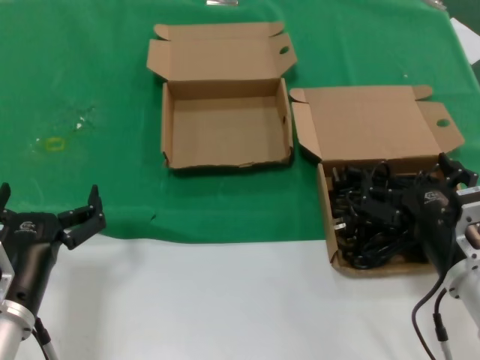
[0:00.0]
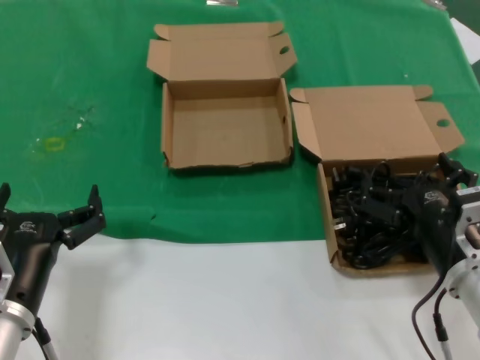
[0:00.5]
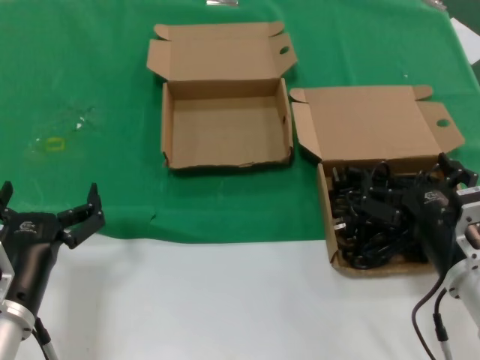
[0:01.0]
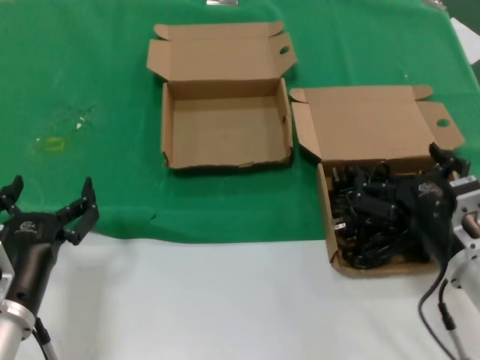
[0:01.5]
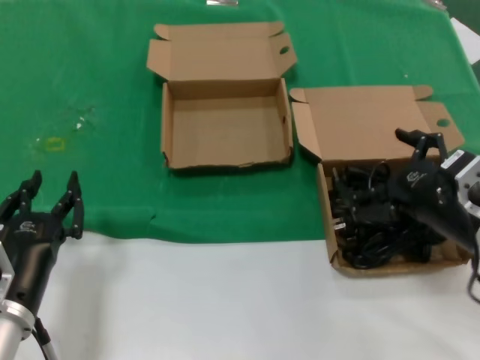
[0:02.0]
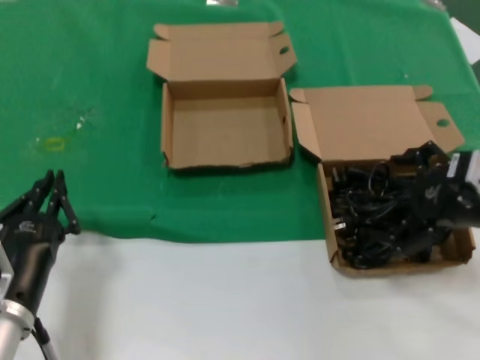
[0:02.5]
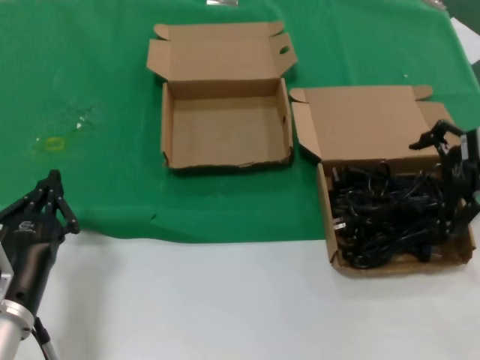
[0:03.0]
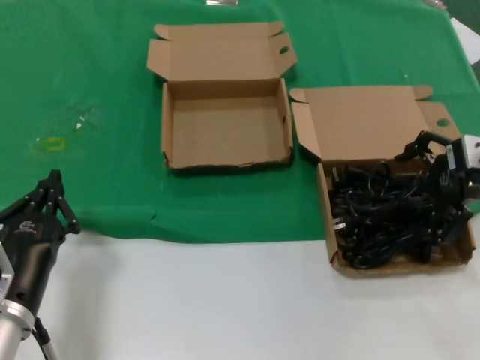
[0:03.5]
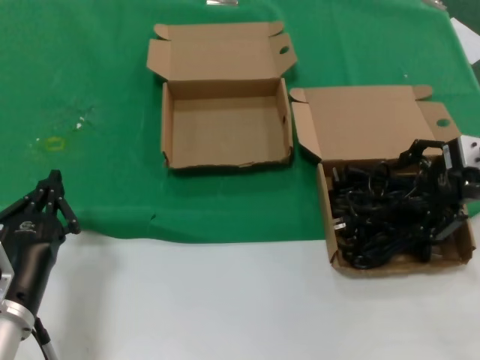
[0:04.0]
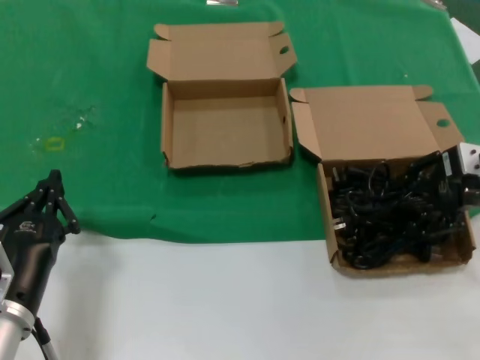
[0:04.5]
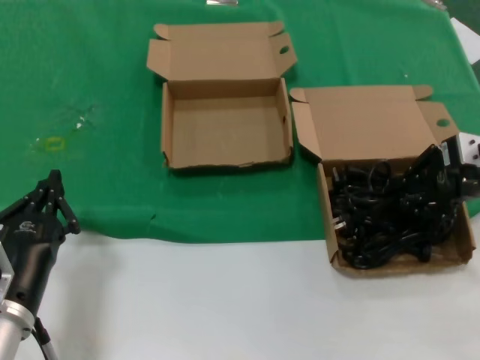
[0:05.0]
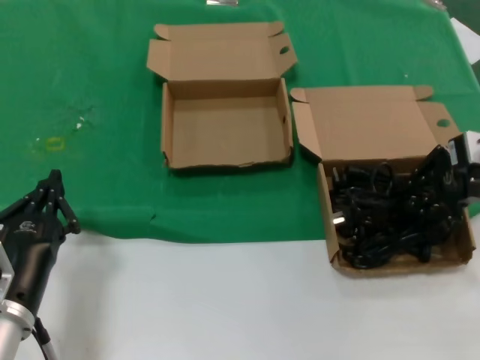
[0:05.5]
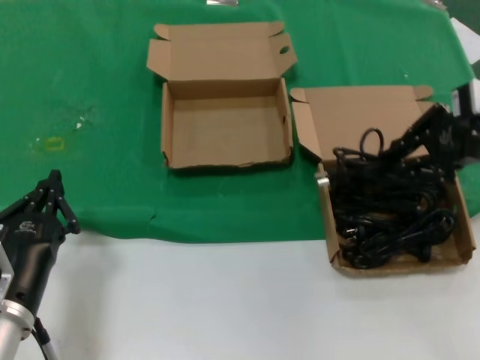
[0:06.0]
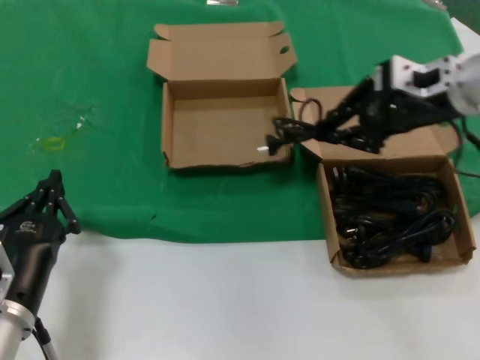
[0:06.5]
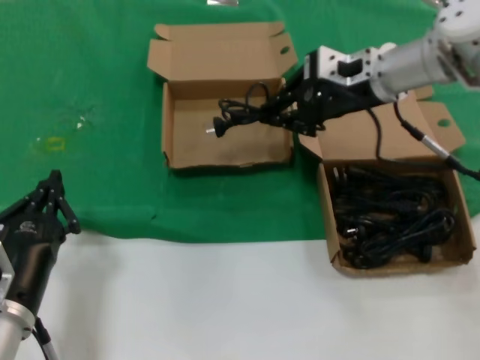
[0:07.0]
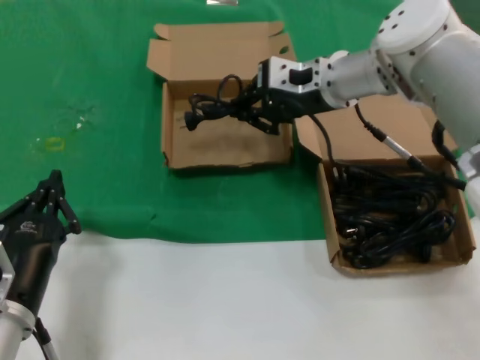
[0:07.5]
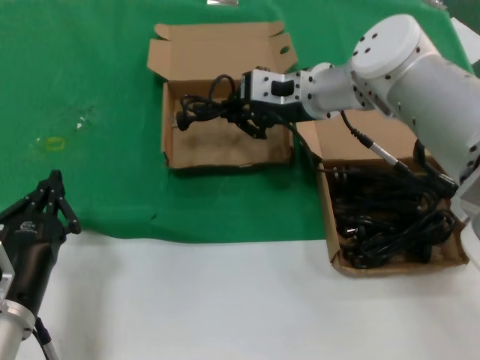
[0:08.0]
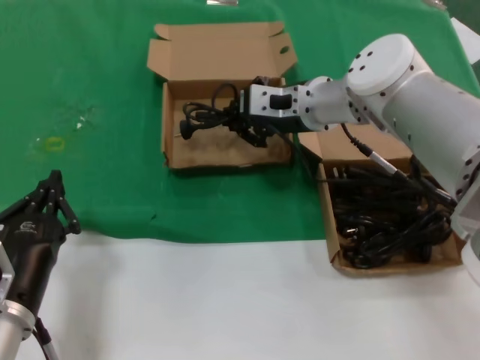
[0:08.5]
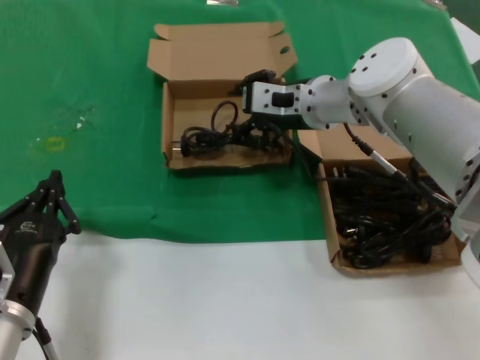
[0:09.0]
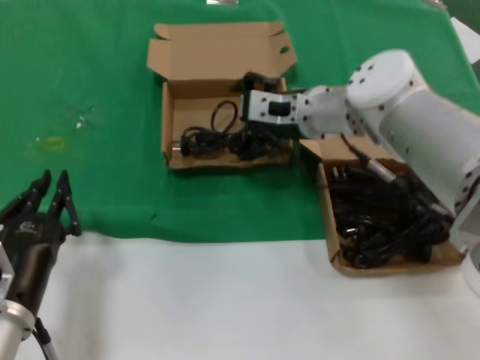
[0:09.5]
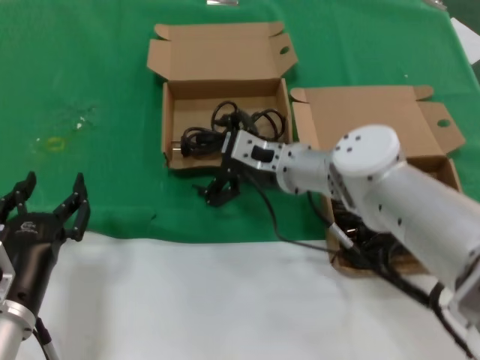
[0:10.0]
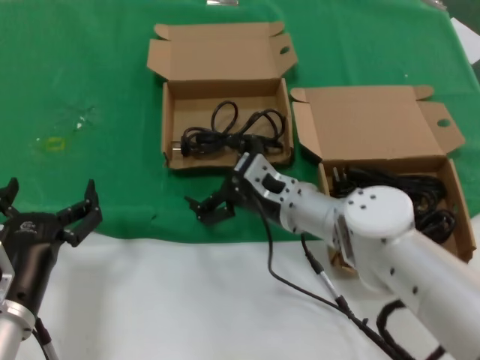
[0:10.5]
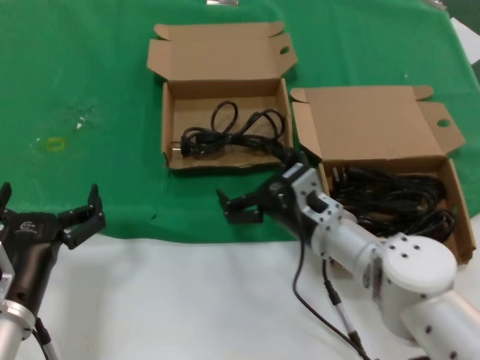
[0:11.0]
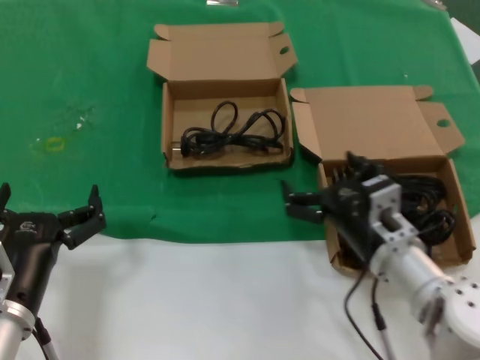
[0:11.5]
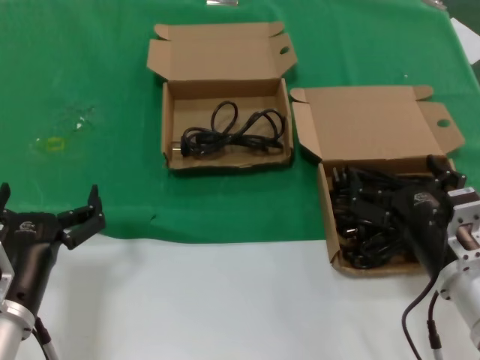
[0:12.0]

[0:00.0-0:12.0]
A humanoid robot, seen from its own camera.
Task of the whole recording: take the parts from the box containing them and put them into an empty box.
Step, 0.0 to 5.0 s: Grasp the data cable.
Step, 5.5 to 8.5 s: Place the data cable in the another box.
0.0 to 2.0 s: The right hand goes approximately 5 cm upward.
2.0 to 4.0 s: The right hand is displaced forward, upward and to the right by approximately 15 cm.
4.0 to 6.0 s: The right hand moves upward, about 5 cm.
6.0 to 8.0 s: The right hand heads to the left and forward, covering about 25 cm.
8.0 to 10.0 s: The right hand shifts roughly 10 cm downward.
10.0 to 12.0 s: The right hand shifts roughly 25 cm backward and to the right.

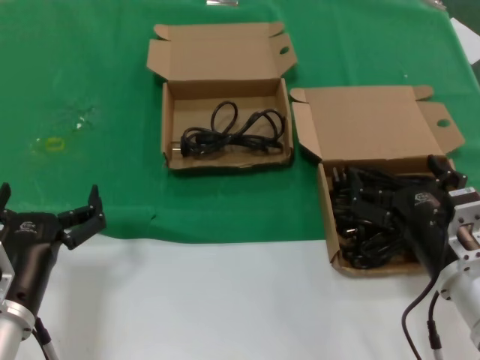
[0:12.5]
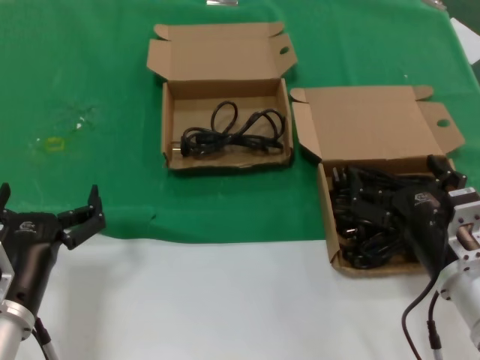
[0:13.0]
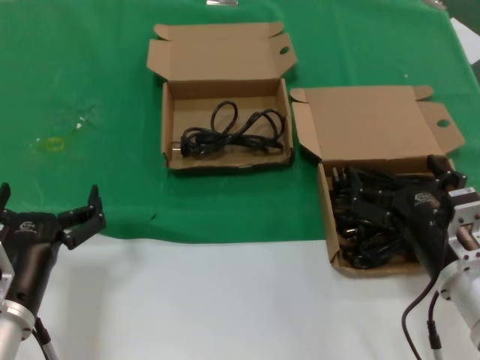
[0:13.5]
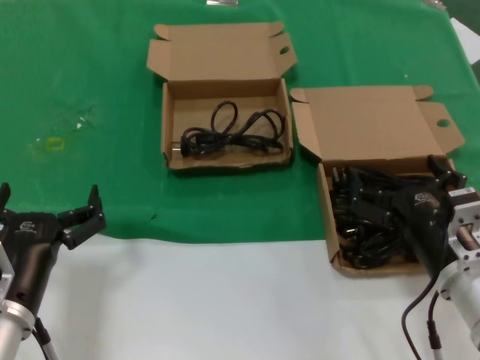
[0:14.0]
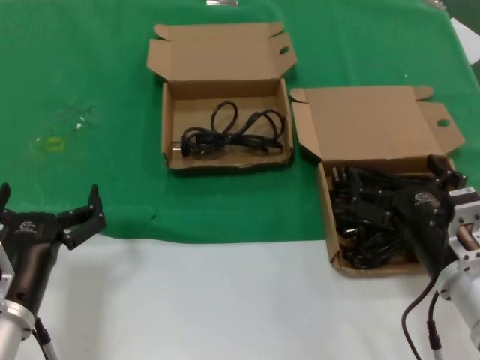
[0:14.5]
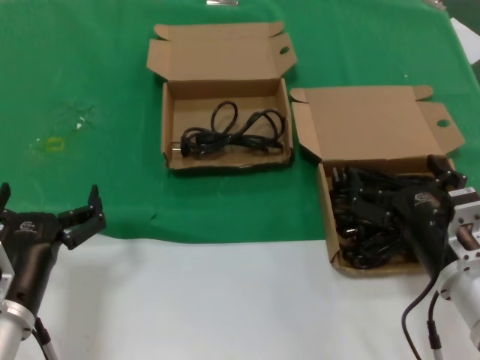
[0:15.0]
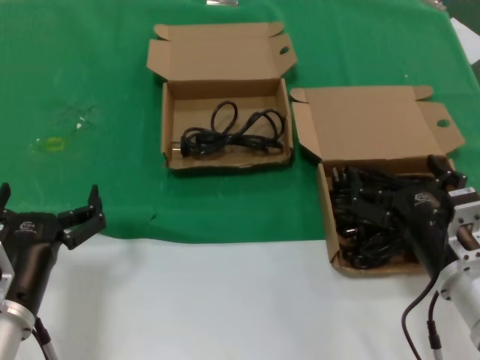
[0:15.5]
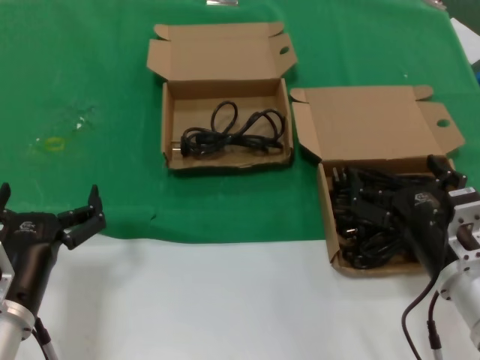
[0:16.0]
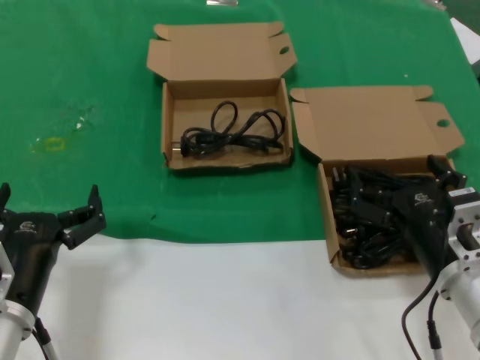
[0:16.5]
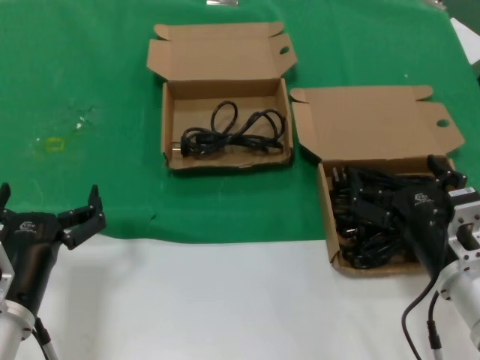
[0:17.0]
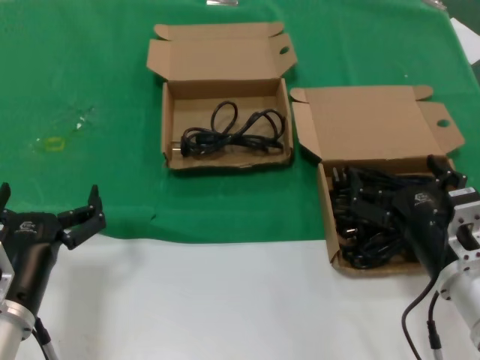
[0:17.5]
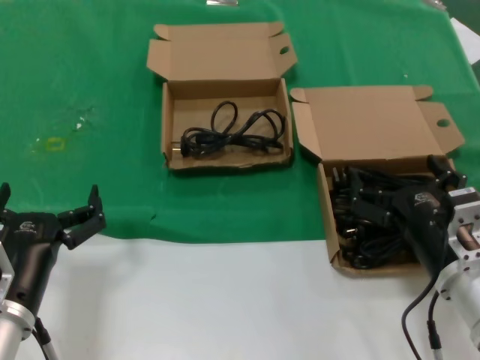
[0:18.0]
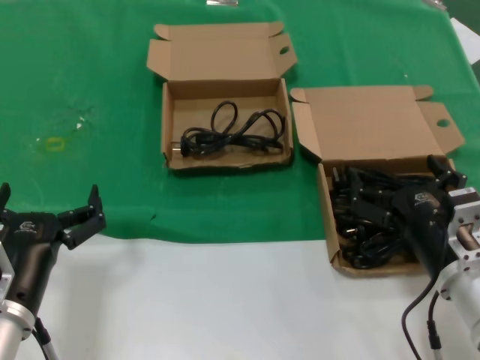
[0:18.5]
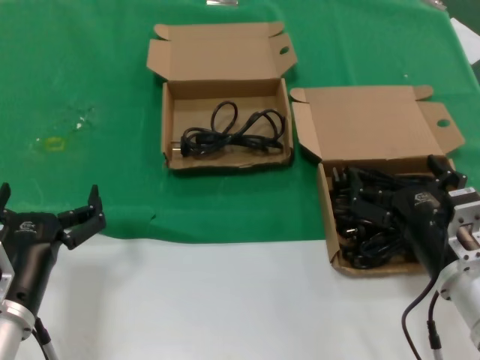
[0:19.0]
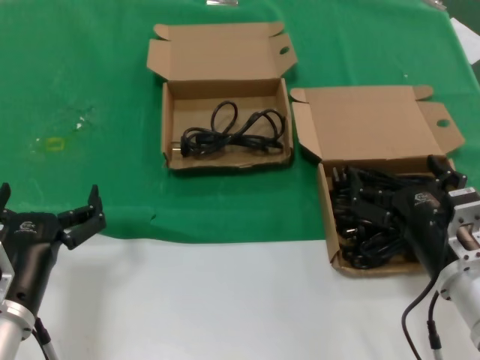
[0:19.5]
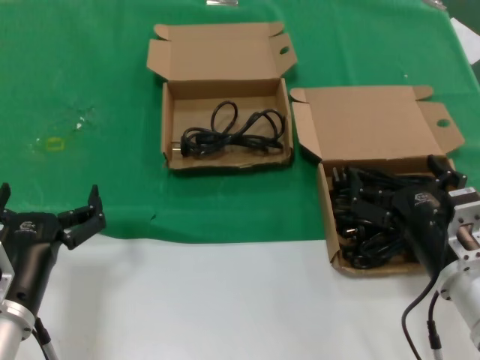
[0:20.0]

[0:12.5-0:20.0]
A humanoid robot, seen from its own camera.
Task of the whole recording: take the parts from the box containing them and put them into an empty box.
12.5 to 20.0 s: Both hands stay put.

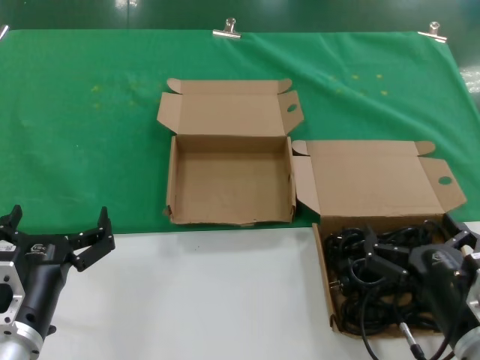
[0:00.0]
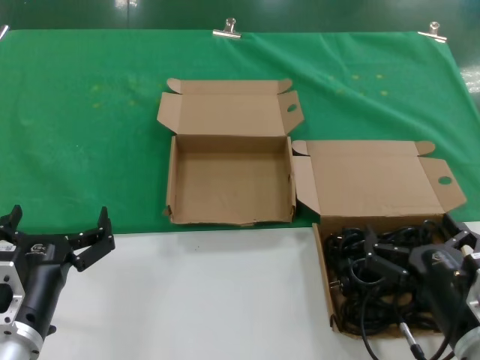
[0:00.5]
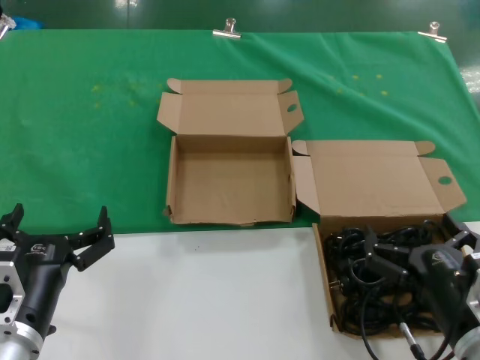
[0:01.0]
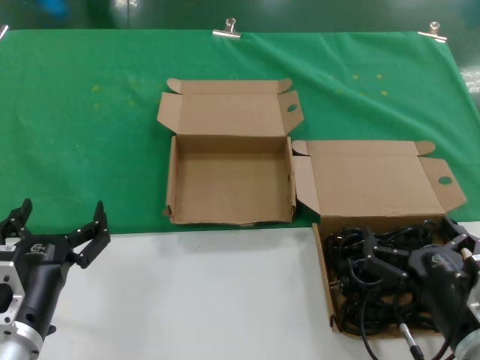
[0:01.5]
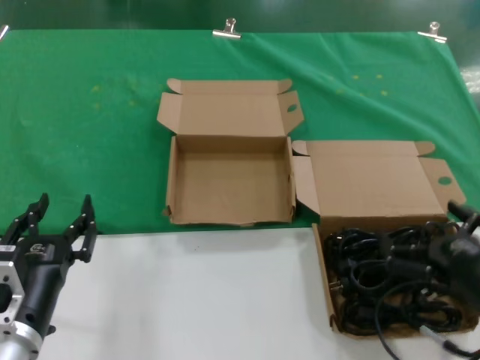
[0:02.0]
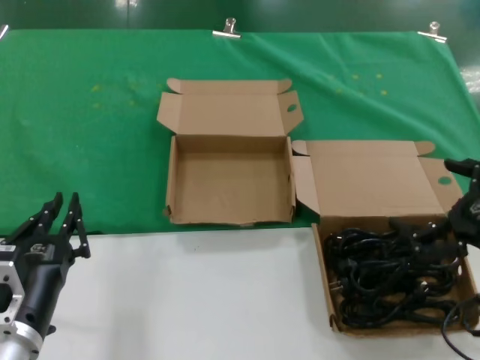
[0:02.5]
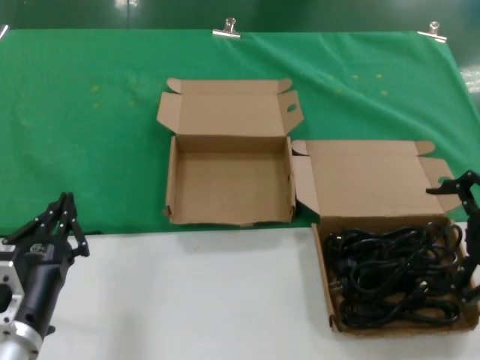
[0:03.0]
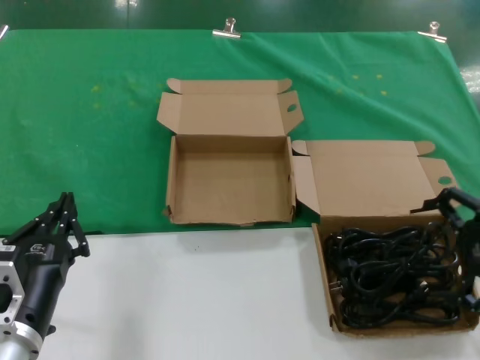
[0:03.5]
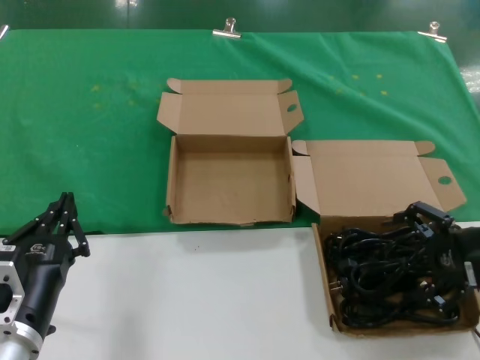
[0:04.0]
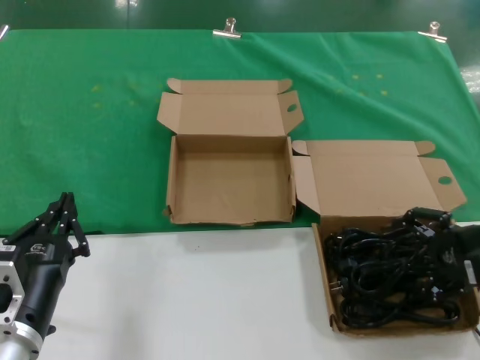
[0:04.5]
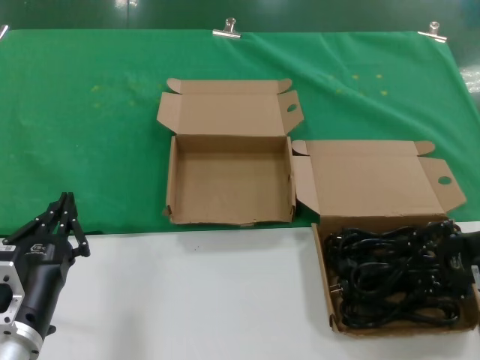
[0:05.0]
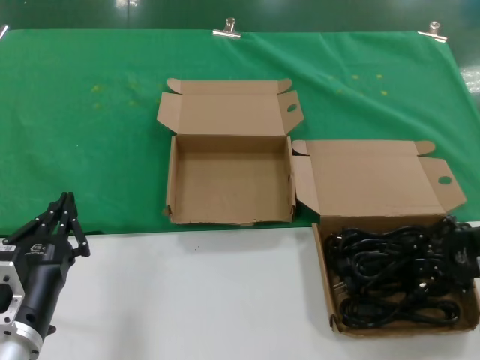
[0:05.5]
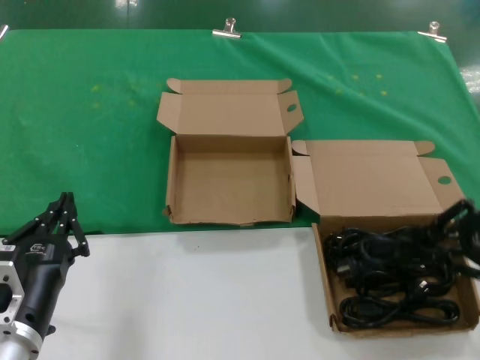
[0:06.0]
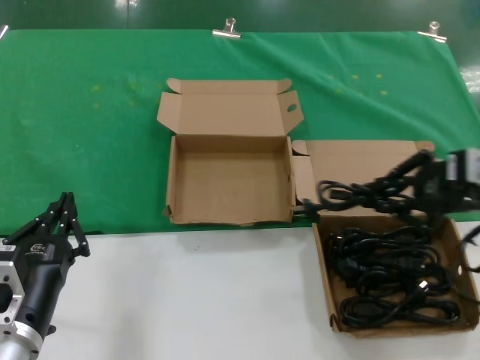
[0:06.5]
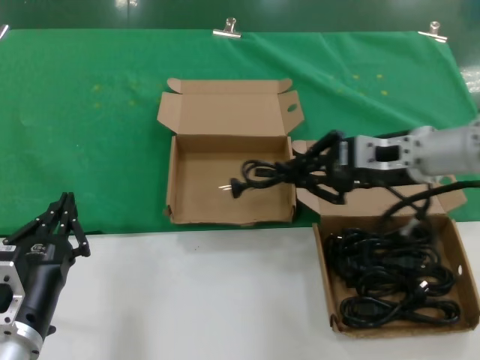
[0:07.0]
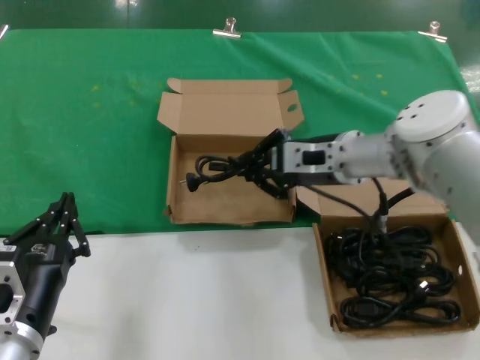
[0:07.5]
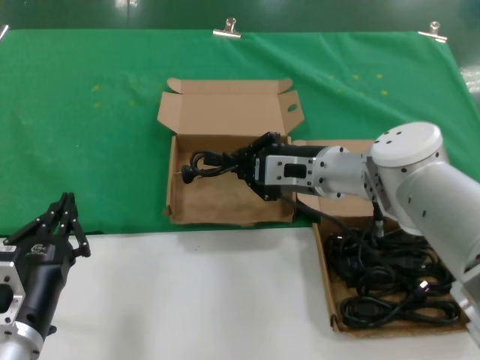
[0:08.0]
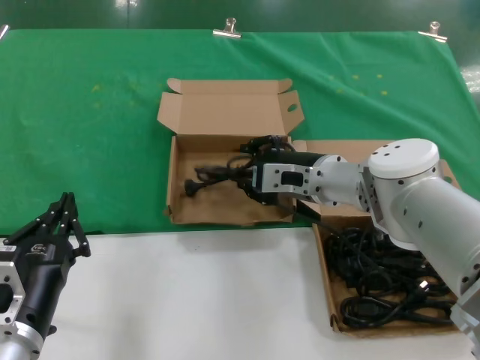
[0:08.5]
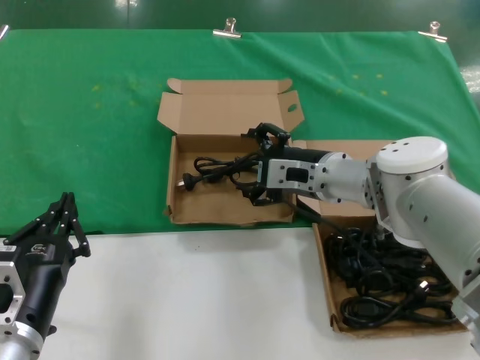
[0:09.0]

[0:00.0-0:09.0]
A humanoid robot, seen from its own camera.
Task of the whole recording: take the parts from the box containing them and put them into an empty box.
Step, 0.0 to 5.0 s: Grasp the data cable.
Step, 5.5 to 8.5 s: Place the data cable in the another box.
0.0 to 2.0 s: The right hand changes place by about 5 cm.
2.0 to 4.5 s: The right hand heads forward, to the right and upward, covering approximately 15 cm.
4.5 to 7.0 s: The right hand is displaced to the left, forward and upward by roughly 20 cm.
7.0 to 9.0 s: The right hand travels to the left and downward by approximately 15 cm.
